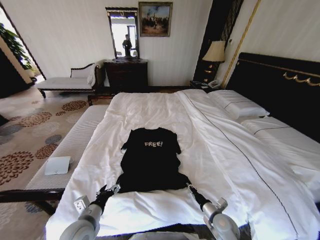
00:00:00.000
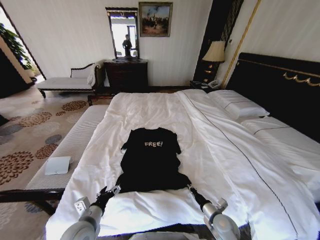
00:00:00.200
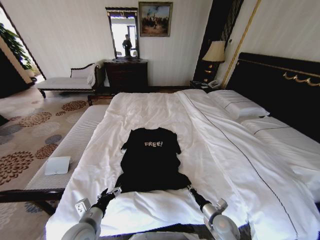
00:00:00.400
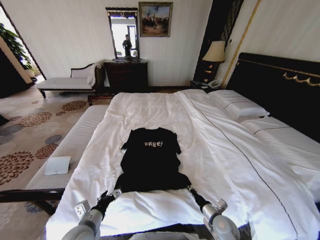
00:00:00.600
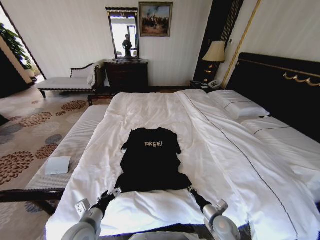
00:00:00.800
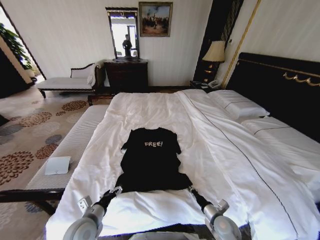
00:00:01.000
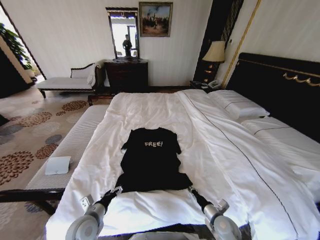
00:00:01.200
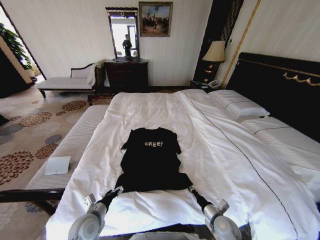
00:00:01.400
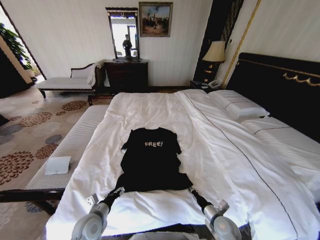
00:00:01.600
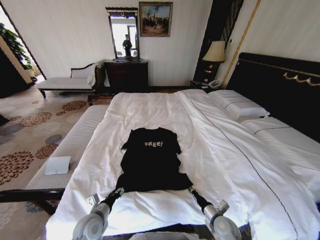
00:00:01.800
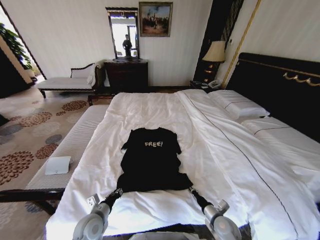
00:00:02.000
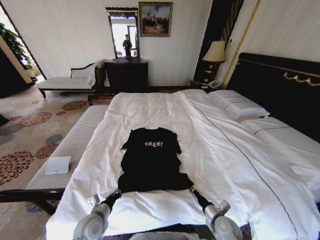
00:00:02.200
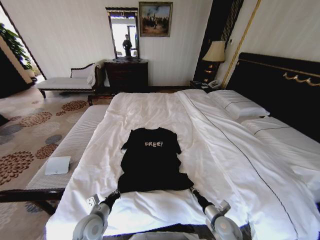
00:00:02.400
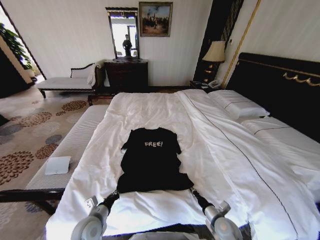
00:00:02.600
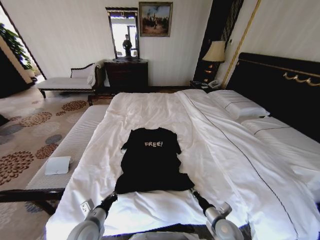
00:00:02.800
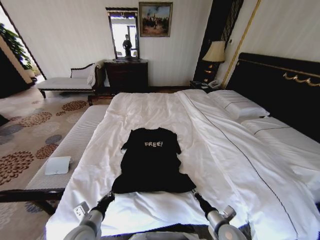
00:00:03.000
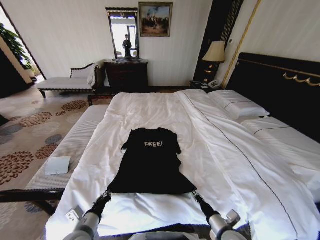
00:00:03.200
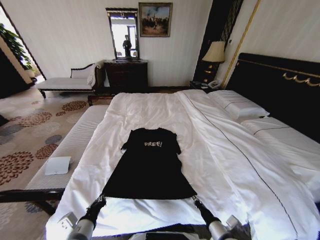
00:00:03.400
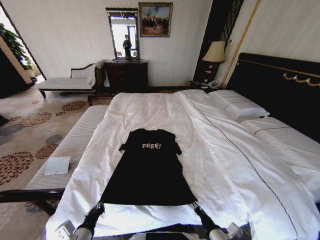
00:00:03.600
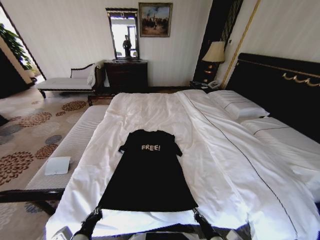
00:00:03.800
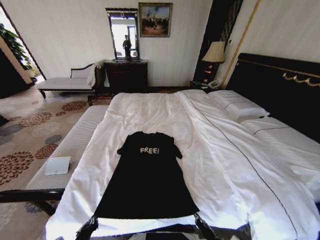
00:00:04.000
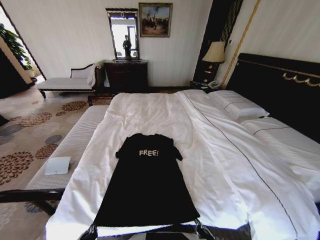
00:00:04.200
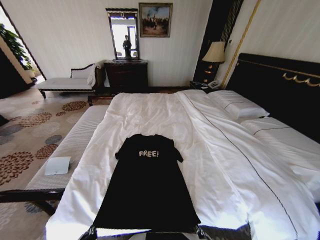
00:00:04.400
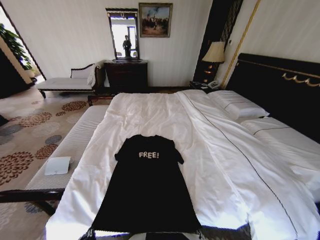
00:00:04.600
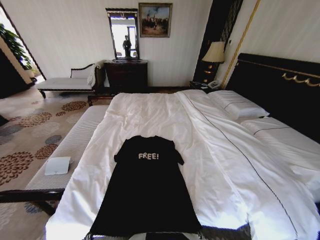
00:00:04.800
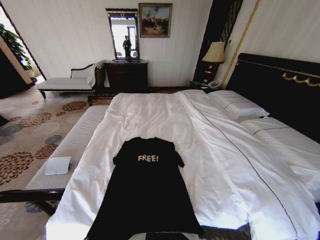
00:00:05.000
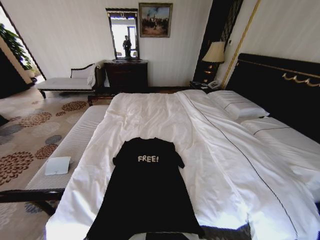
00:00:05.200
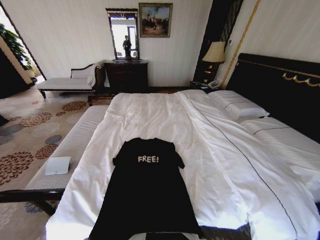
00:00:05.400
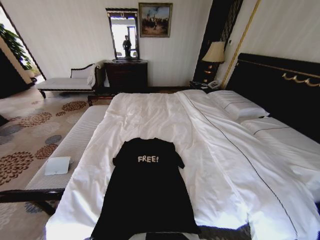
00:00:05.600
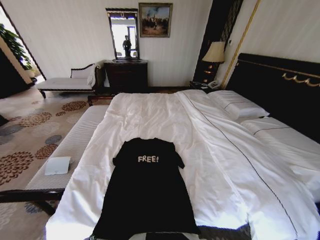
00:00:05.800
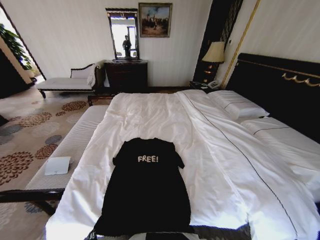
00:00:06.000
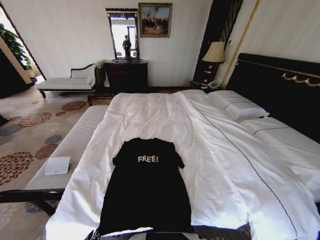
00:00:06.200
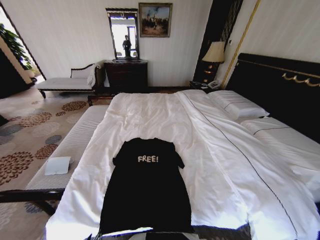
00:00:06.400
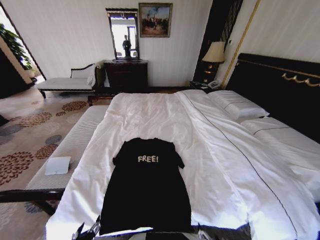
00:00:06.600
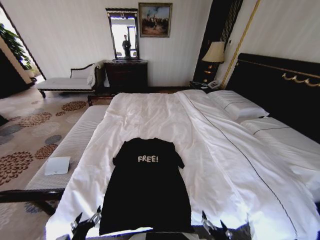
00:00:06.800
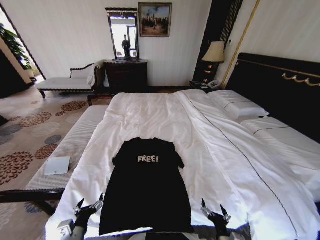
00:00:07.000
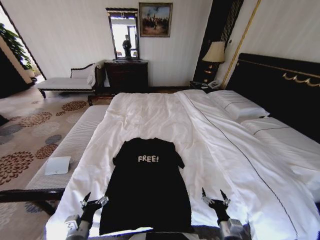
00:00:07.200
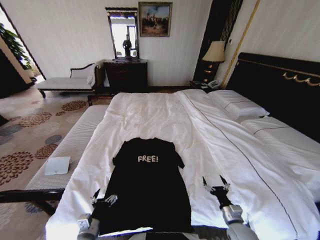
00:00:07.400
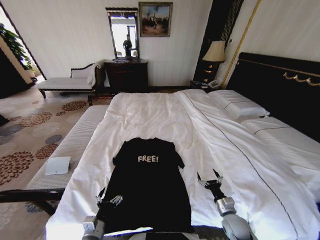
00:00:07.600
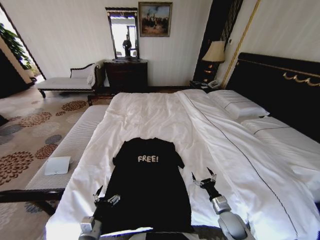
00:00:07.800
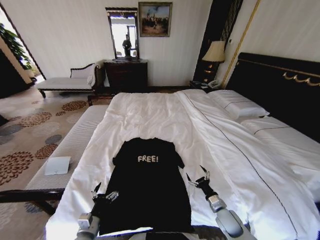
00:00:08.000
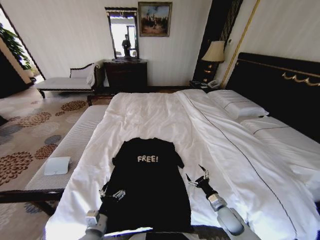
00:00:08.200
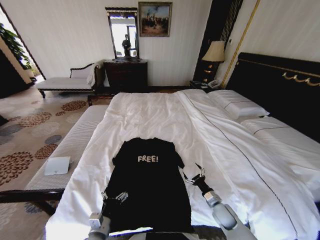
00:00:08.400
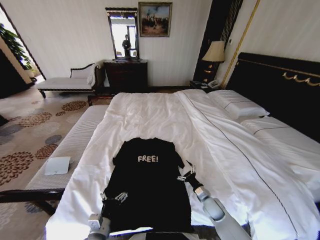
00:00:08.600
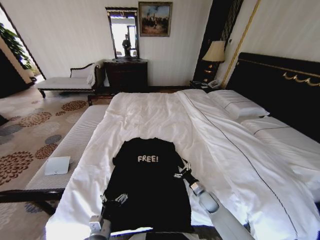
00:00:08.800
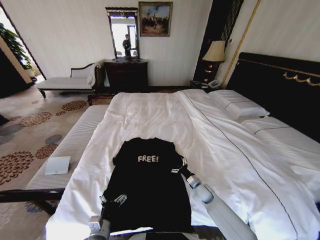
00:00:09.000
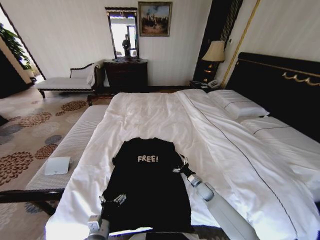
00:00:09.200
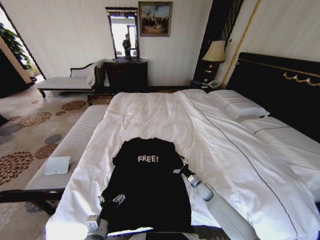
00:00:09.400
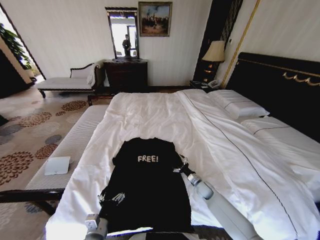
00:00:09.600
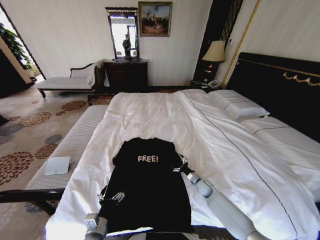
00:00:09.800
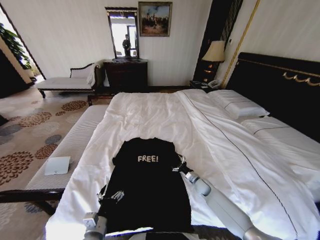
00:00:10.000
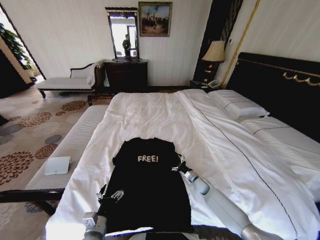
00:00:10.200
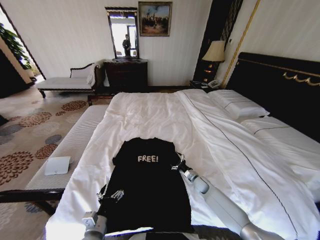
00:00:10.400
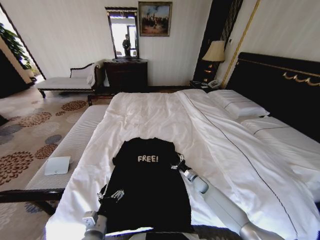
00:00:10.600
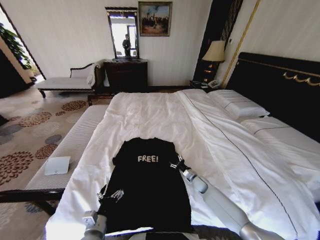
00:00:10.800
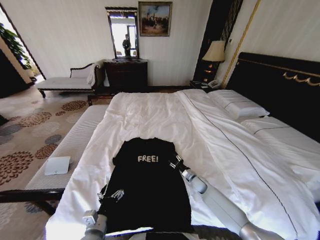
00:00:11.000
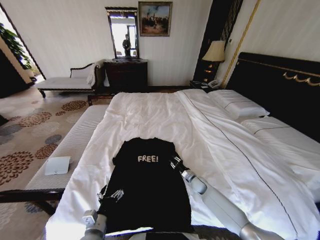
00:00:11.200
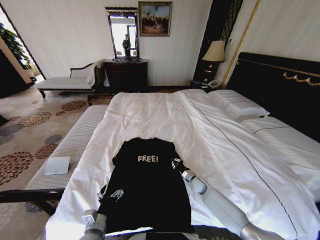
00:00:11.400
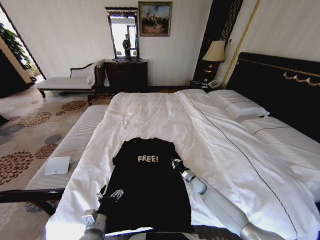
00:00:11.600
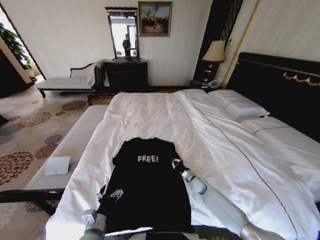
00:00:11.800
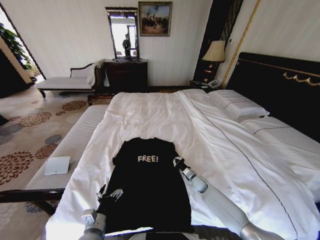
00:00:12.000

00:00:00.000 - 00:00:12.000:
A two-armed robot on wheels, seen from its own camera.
Task of the whole recording: Fold the clothes on the bed.
00:00:00.000 - 00:00:01.600: The left gripper moves approximately 5 cm.
00:00:01.600 - 00:00:03.000: The right gripper moves approximately 5 cm. The left gripper changes place by about 5 cm, and closes.
00:00:03.000 - 00:00:04.400: The left gripper travels backward by about 10 cm. Meanwhile the right gripper is displaced backward and to the left by roughly 15 cm.
00:00:04.400 - 00:00:06.000: The grippers move only a little.
00:00:06.000 - 00:00:07.600: The left gripper heads forward, covering roughly 10 cm, and opens its fingers. Meanwhile the right gripper travels forward and to the right by about 25 cm, and opens up.
00:00:07.600 - 00:00:09.000: The right gripper heads forward and to the left, covering roughly 15 cm.
00:00:09.000 - 00:00:10.400: The right gripper is displaced forward by roughly 5 cm.
00:00:10.400 - 00:00:12.000: The right gripper closes its fingers.

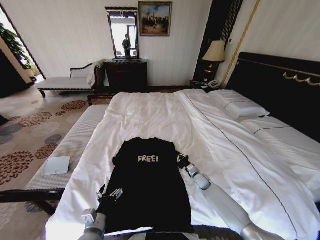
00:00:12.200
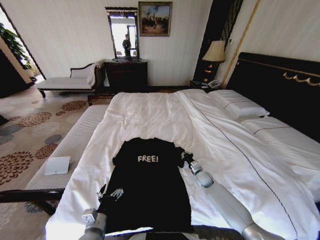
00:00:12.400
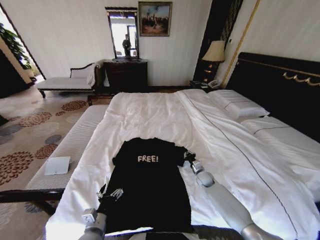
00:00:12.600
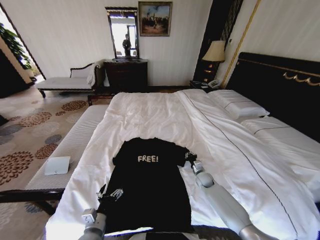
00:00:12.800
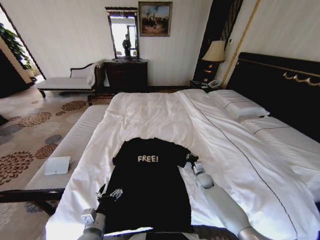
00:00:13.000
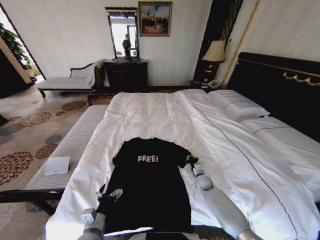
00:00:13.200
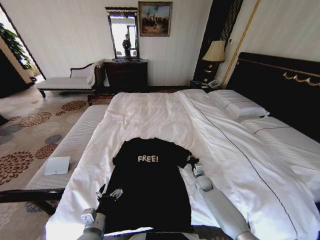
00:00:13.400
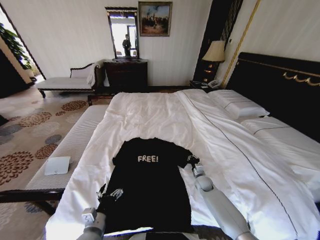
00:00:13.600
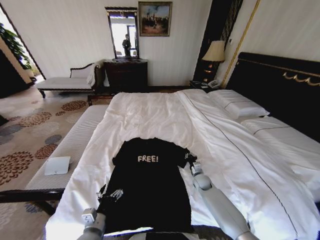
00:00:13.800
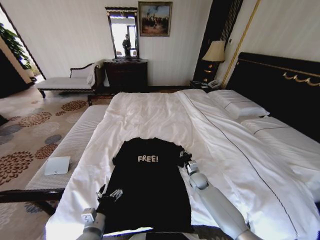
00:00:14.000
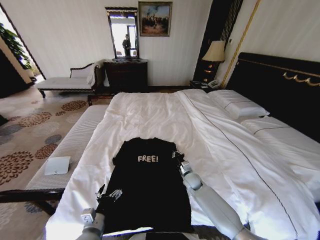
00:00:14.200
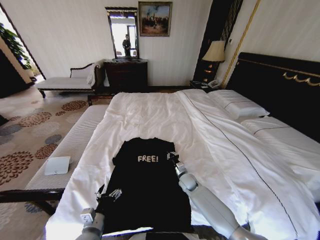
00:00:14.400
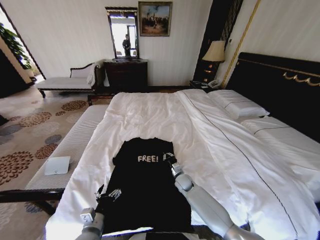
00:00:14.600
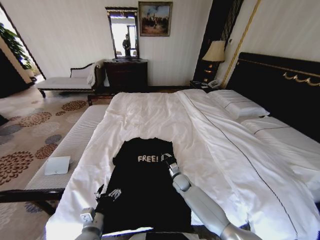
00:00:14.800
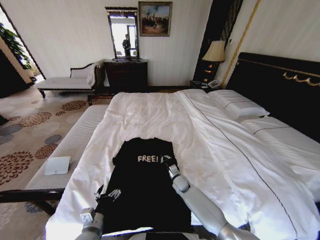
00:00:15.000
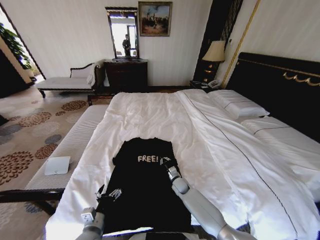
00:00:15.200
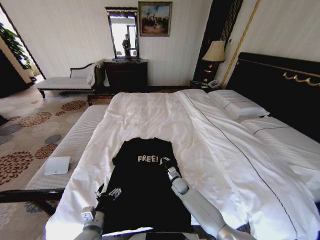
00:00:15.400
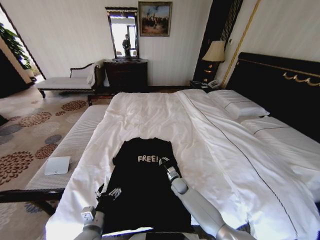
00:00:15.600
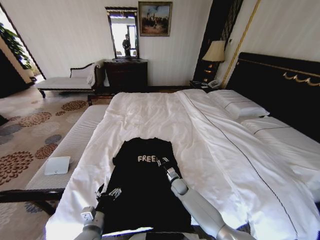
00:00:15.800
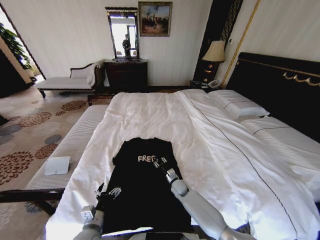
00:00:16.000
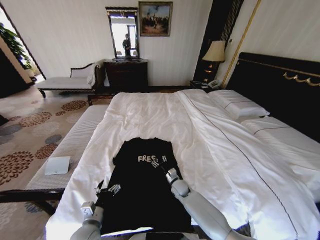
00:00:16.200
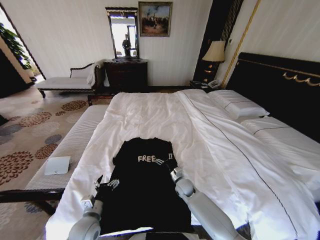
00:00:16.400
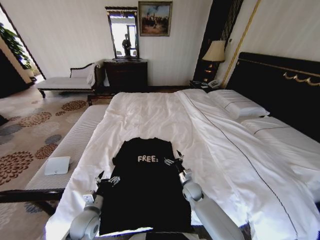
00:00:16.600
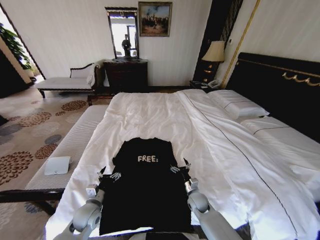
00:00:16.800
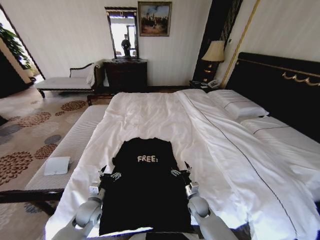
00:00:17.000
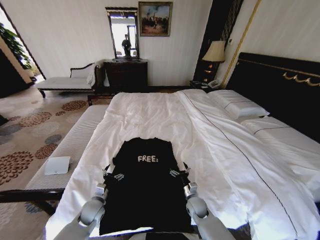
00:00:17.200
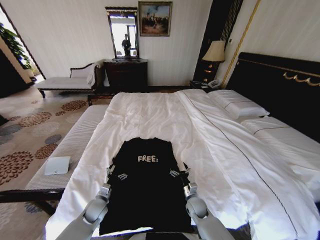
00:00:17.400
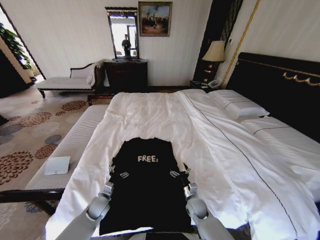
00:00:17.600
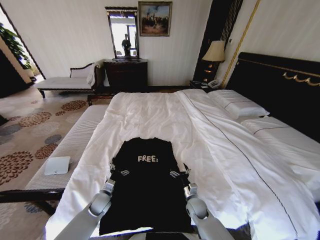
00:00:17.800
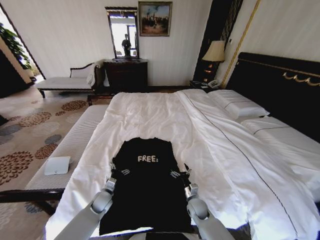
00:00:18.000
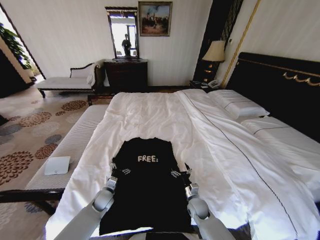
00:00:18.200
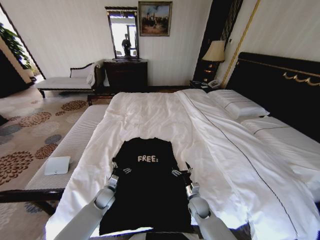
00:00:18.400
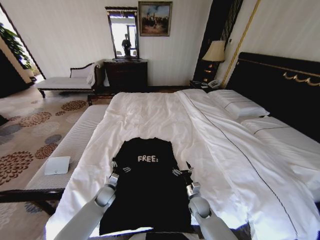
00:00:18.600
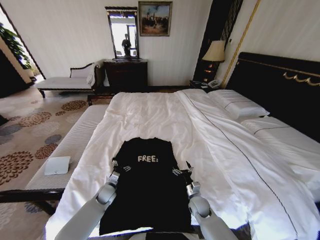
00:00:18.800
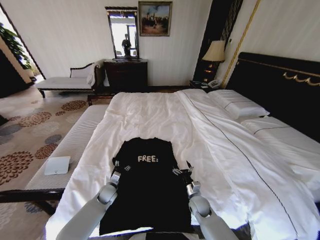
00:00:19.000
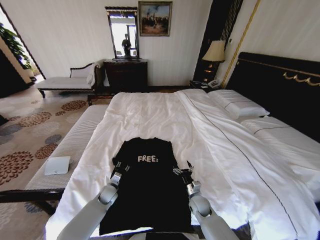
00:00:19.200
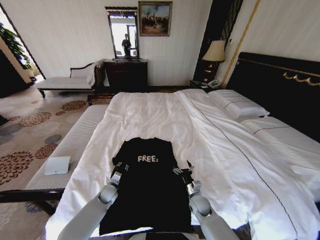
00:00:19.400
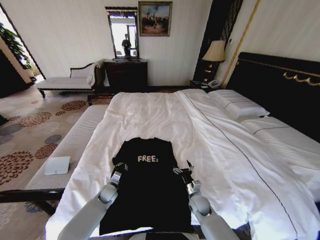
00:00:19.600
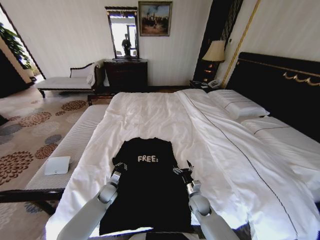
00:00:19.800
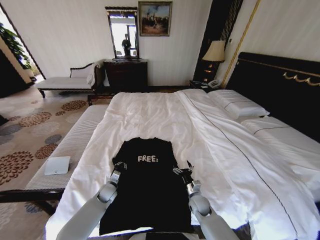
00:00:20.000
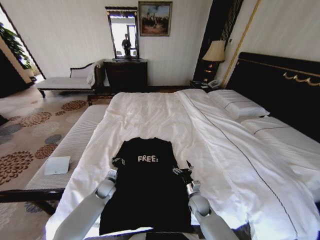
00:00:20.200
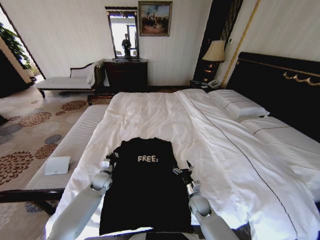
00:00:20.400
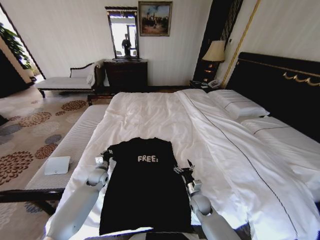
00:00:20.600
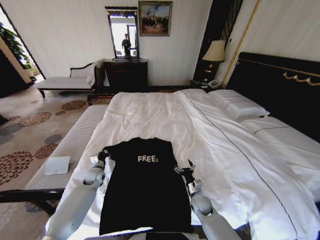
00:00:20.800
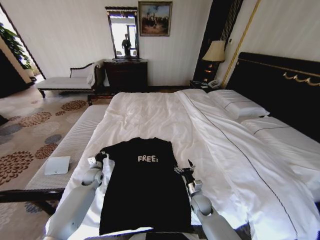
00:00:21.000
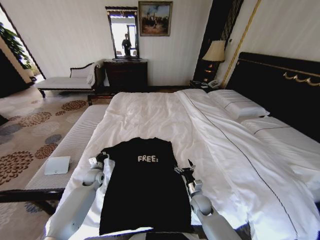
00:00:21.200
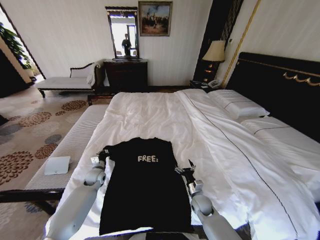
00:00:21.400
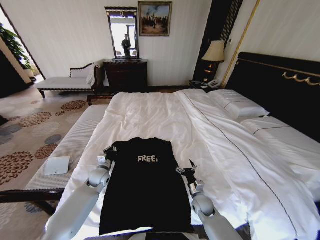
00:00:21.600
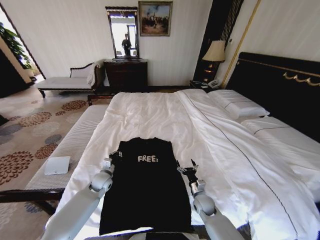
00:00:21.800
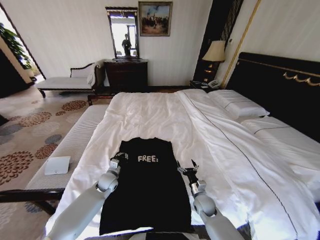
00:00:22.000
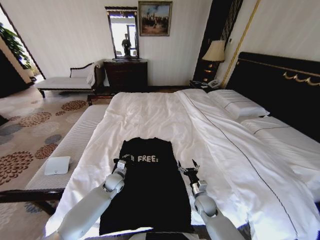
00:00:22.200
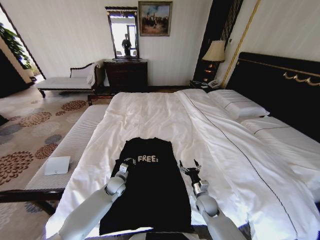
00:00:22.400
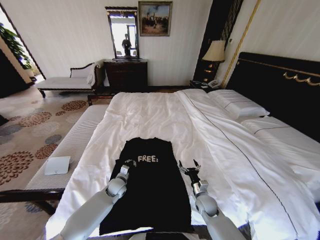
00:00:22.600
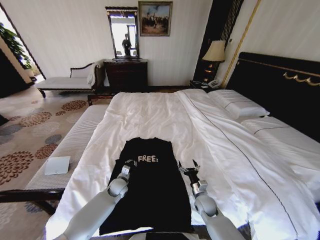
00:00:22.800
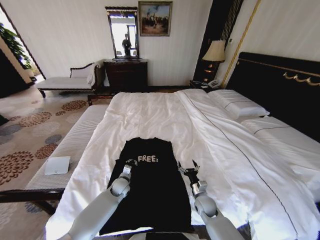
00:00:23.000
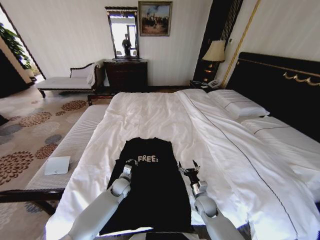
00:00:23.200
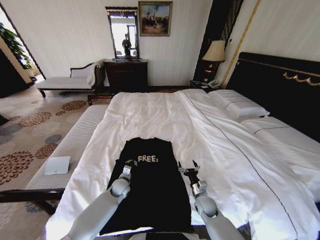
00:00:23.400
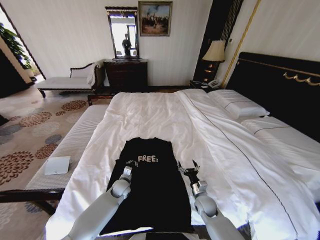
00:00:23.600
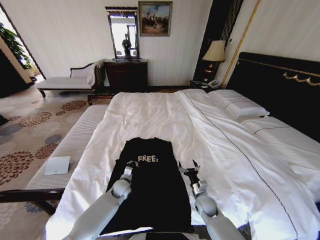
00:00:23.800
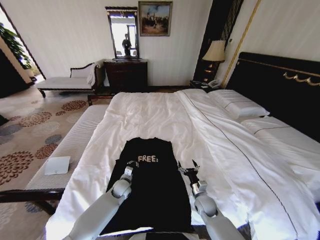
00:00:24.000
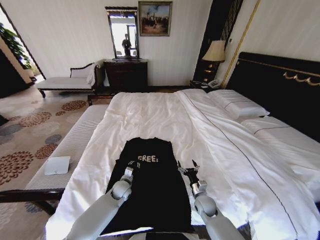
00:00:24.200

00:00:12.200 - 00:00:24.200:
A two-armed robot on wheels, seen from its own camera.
Task of the whole recording: Fold the clothes on the bed.
00:00:13.800 - 00:00:15.200: The right gripper shifts roughly 10 cm to the left.
00:00:15.200 - 00:00:16.600: The left gripper heads forward, covering about 5 cm. The right gripper moves some 5 cm, and opens its fingers.
00:00:16.600 - 00:00:18.200: The right gripper shifts roughly 5 cm backward. Meanwhile the left gripper shifts roughly 15 cm forward and downward.
00:00:18.200 - 00:00:19.800: The left gripper closes.
00:00:19.800 - 00:00:21.200: The left gripper shifts about 10 cm to the left, upward and forward.
00:00:21.200 - 00:00:22.600: The left gripper travels to the right by some 15 cm.
00:00:22.600 - 00:00:24.200: The grippers make only small movements.
